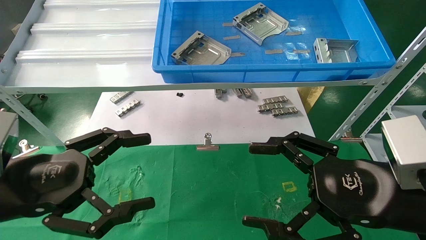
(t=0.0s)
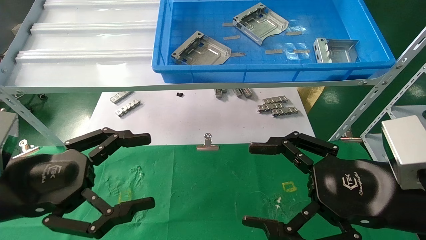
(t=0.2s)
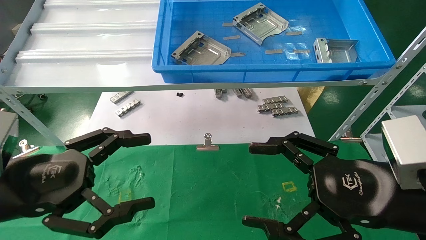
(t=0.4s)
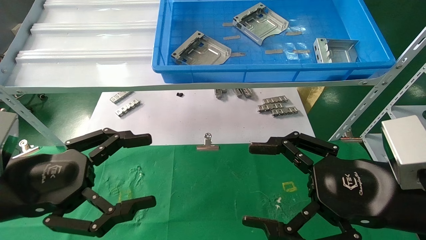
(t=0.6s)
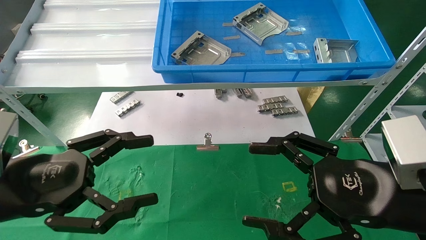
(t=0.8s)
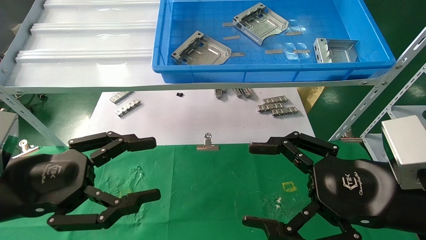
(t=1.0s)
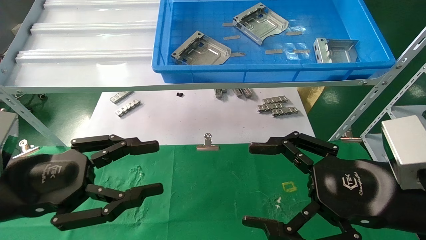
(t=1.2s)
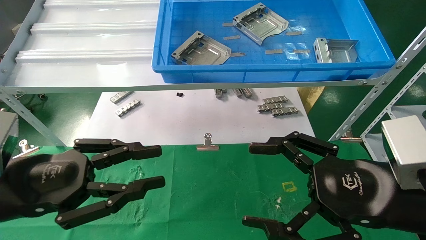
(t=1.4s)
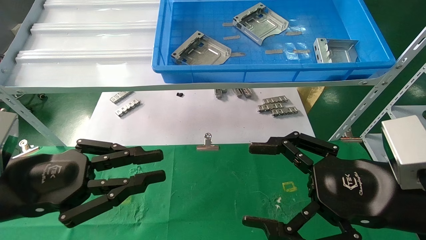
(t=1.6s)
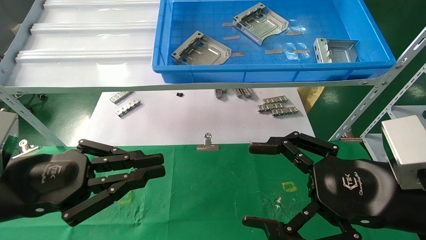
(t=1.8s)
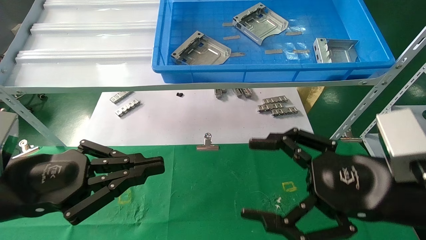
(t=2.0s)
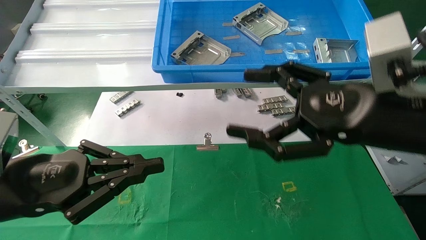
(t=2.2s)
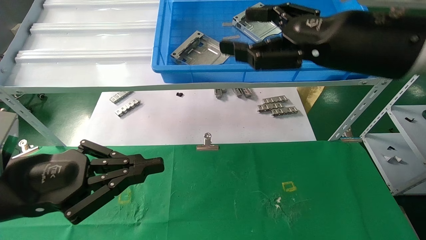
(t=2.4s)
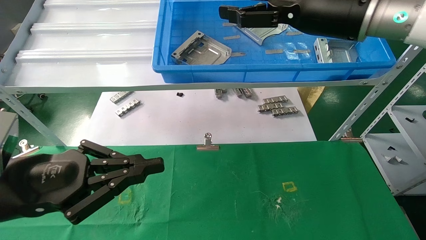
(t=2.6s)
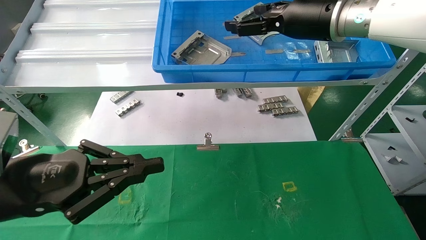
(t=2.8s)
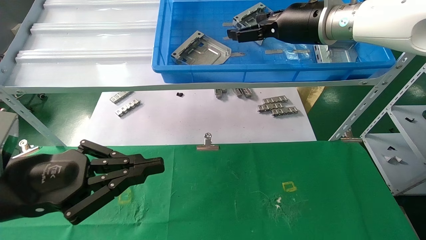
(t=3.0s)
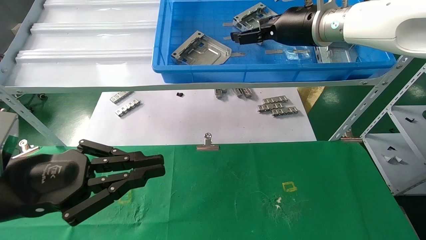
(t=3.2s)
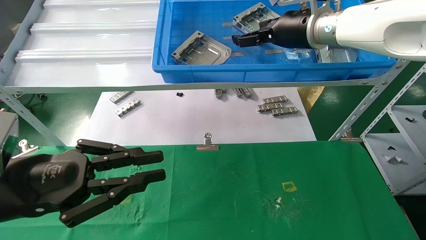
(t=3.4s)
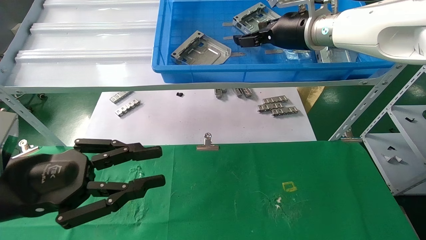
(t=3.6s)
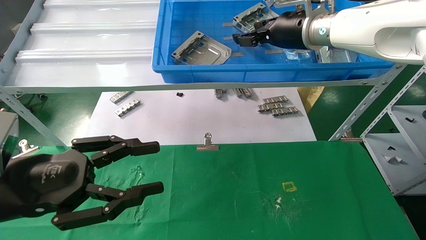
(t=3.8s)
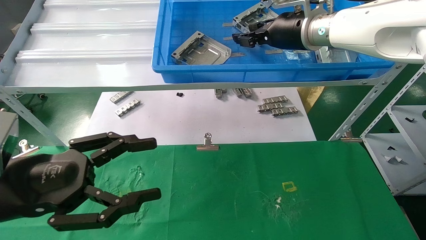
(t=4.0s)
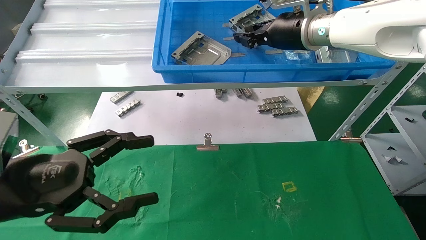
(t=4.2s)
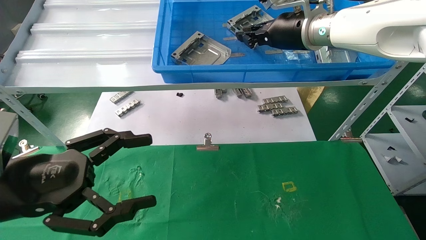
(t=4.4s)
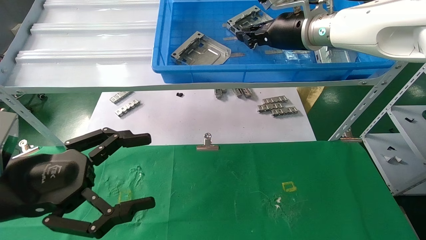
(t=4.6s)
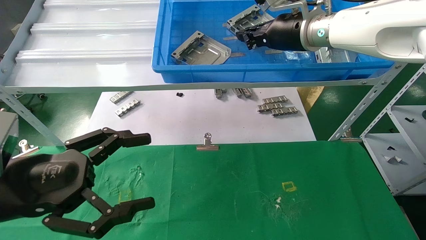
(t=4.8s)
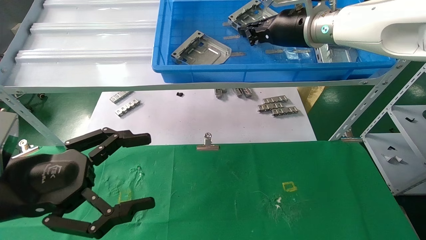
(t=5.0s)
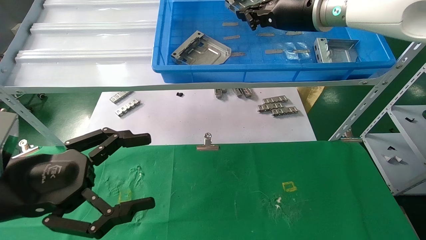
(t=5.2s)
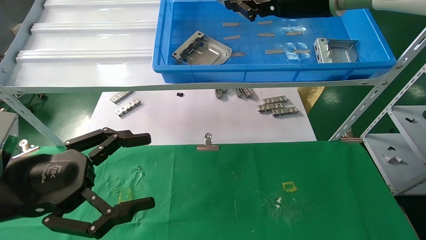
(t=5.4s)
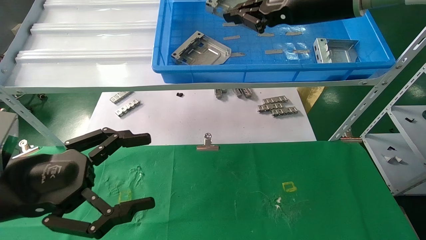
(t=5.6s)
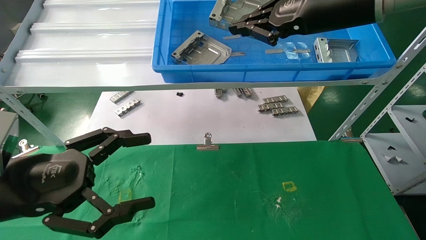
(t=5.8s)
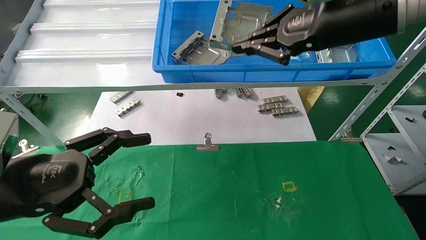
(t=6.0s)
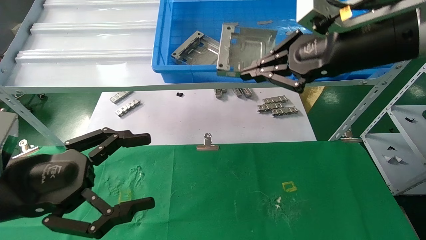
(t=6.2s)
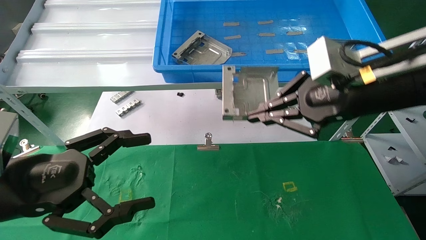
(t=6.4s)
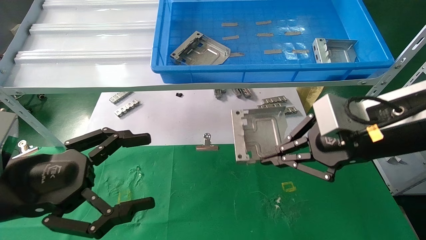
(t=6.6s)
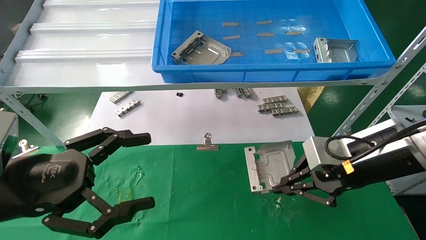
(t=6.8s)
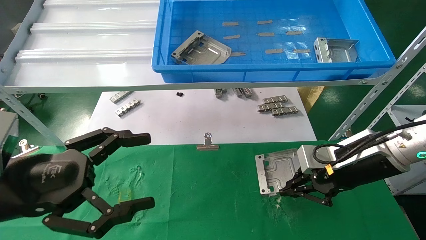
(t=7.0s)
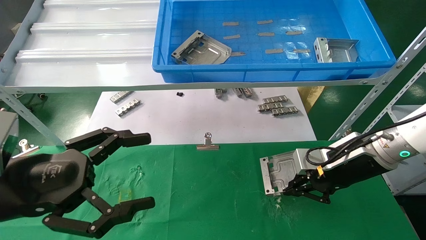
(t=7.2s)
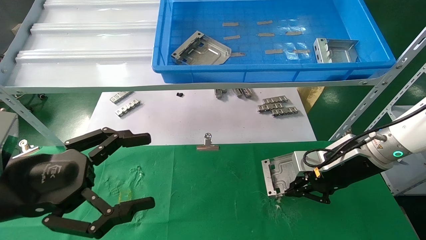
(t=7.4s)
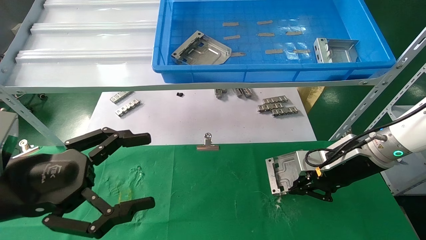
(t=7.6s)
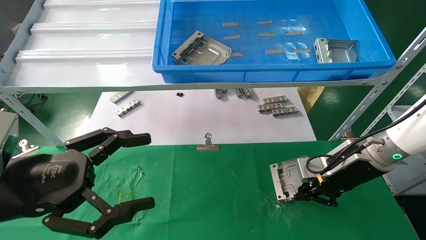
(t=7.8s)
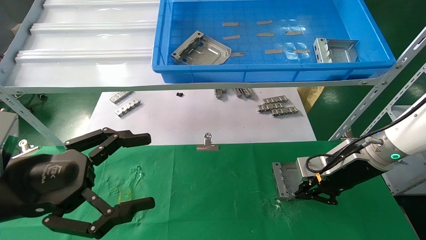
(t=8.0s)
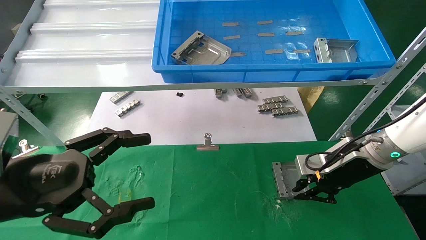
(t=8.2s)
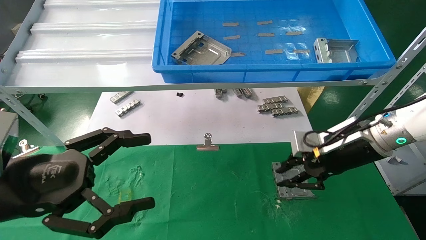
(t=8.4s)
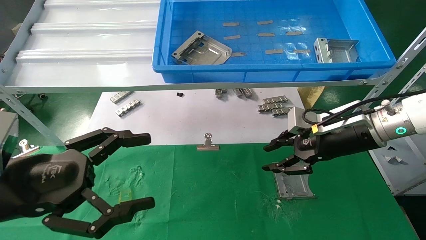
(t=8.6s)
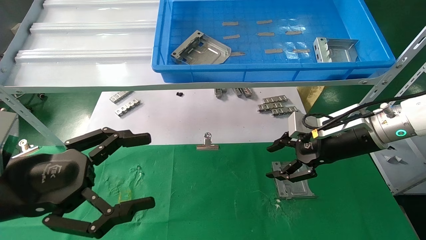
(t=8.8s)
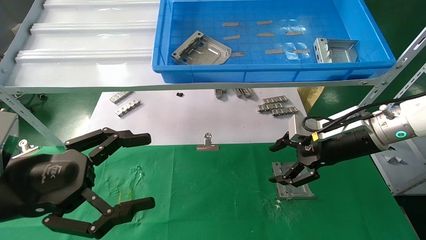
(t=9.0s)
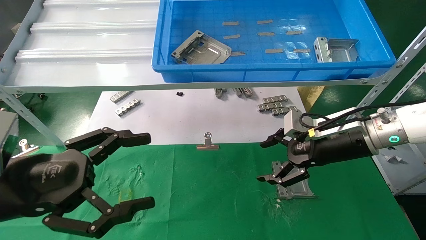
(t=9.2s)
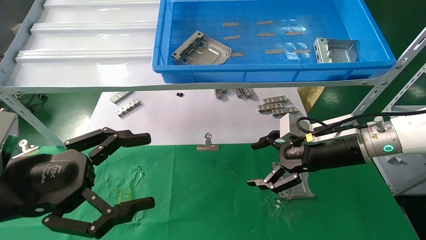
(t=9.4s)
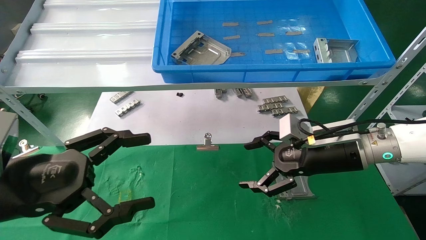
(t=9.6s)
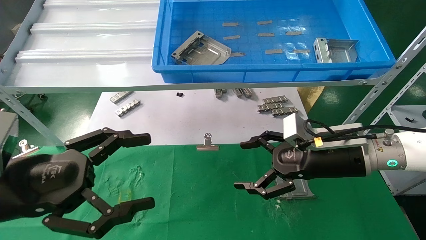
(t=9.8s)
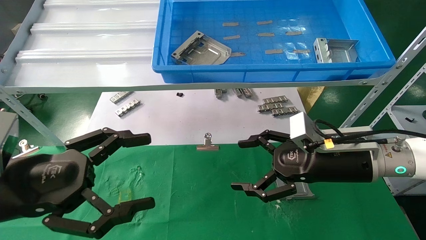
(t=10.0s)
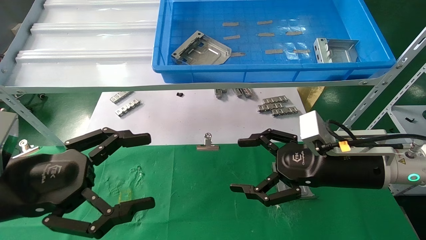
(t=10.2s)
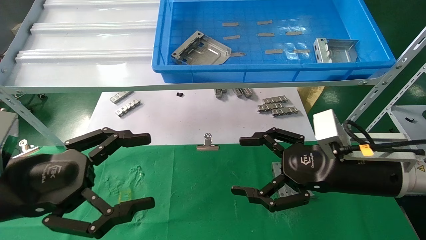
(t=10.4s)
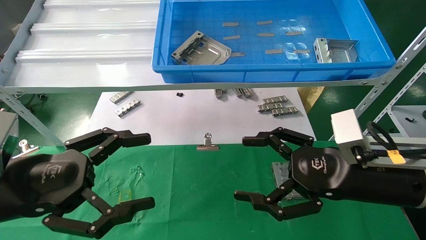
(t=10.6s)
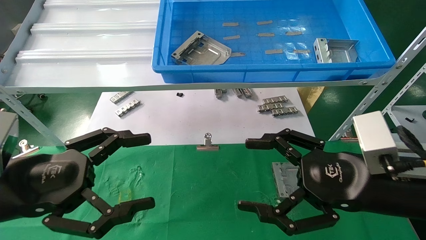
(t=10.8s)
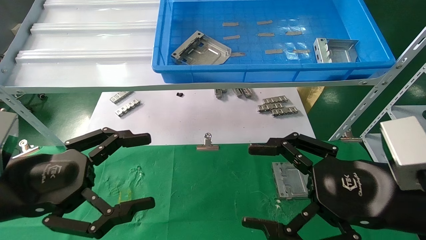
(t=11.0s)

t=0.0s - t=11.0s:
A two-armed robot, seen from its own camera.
Task of the whole recording: use the mechanical arm to pick up the parts and place them on the table.
Step, t=2.4s - t=4.6s: Pick up the hard drive bracket from the feeding area.
Step, t=4.8s - t=8.2s: Place the hard drive bracket into the box.
t=0.0s - t=1.6s: The left gripper closes up.
t=1.6s - t=3.2s: The right gripper travels forward and upward by approximately 30 cm.
t=3.2s - t=4.8s: The left gripper opens, while the right gripper closes.
t=4.8s - t=6.2s: The right gripper shifts some 15 cm backward.
t=6.2s - t=7.8s: The right gripper moves downward, about 20 cm.
t=7.8s - t=9.4s: The right gripper shifts by roughly 5 cm, and opens.
t=9.4s - t=11.0s: The right gripper travels backward by about 15 cm.
